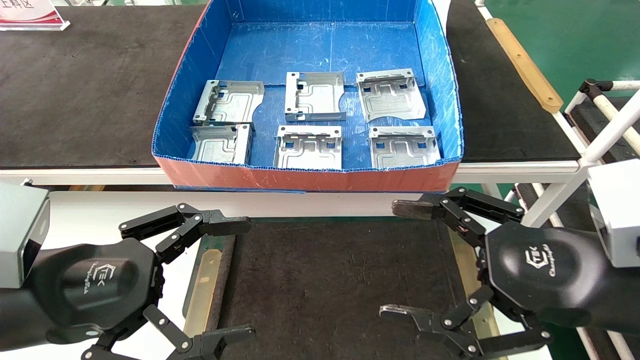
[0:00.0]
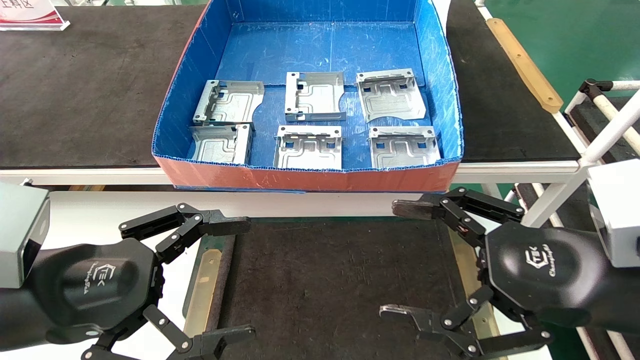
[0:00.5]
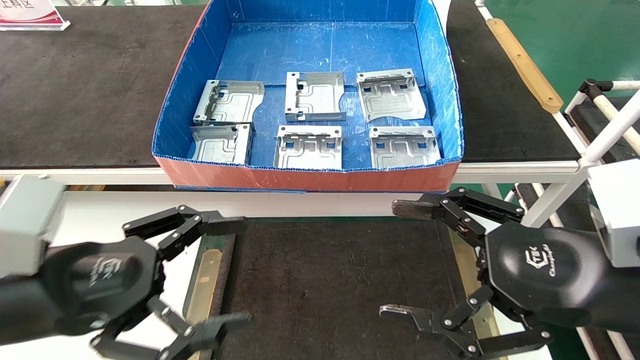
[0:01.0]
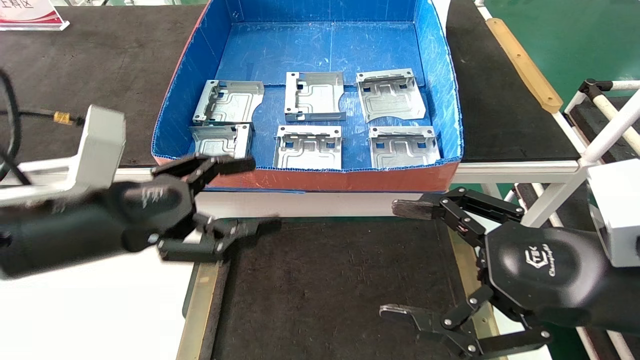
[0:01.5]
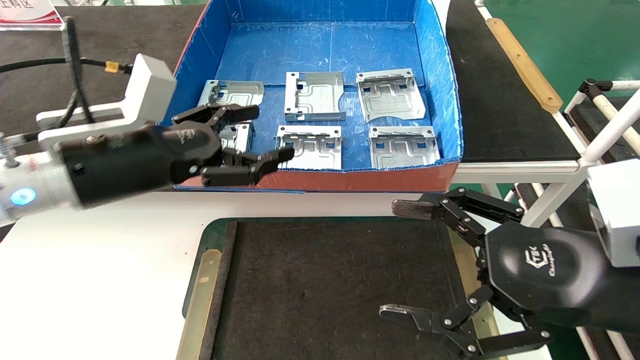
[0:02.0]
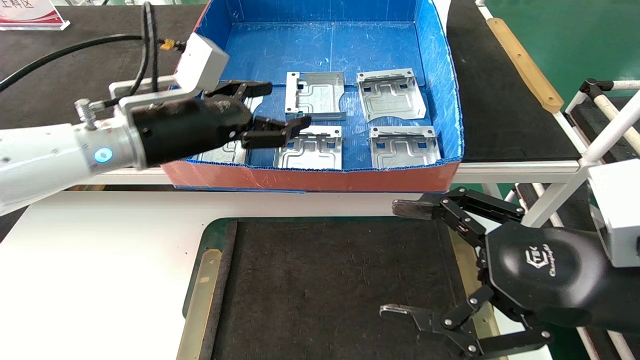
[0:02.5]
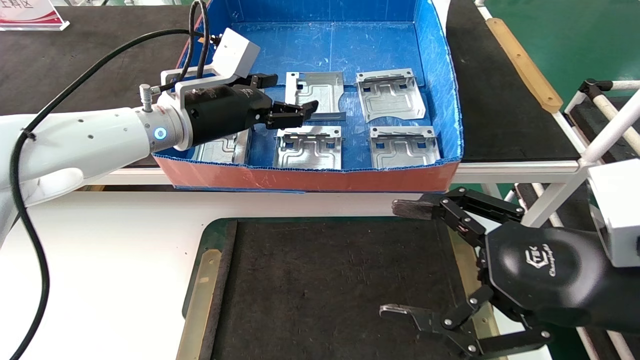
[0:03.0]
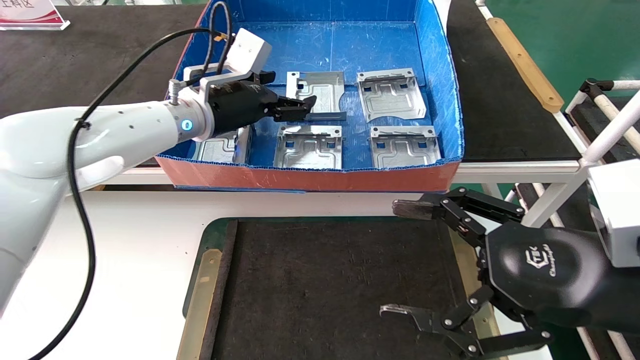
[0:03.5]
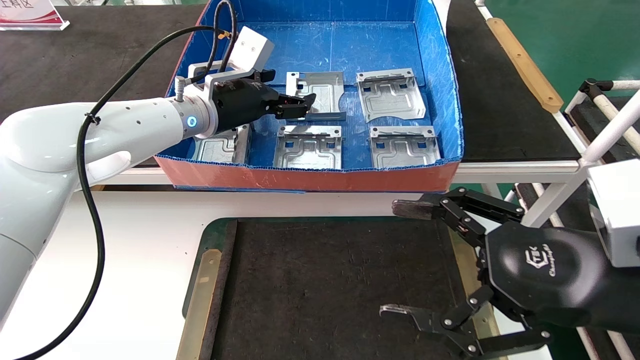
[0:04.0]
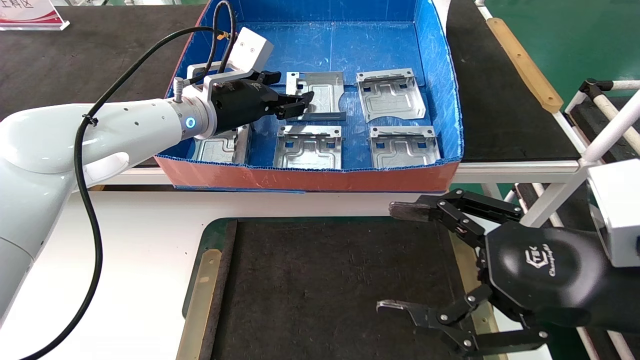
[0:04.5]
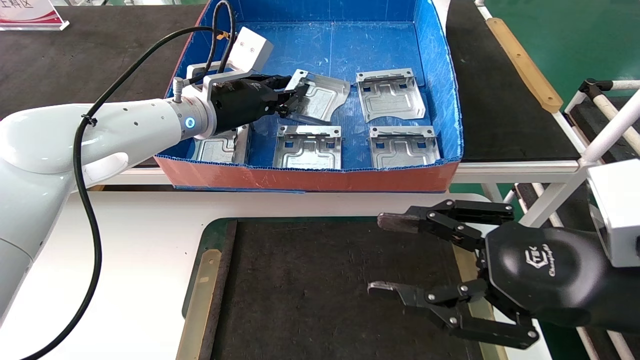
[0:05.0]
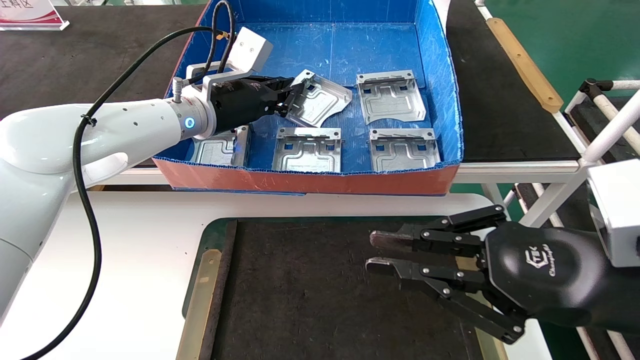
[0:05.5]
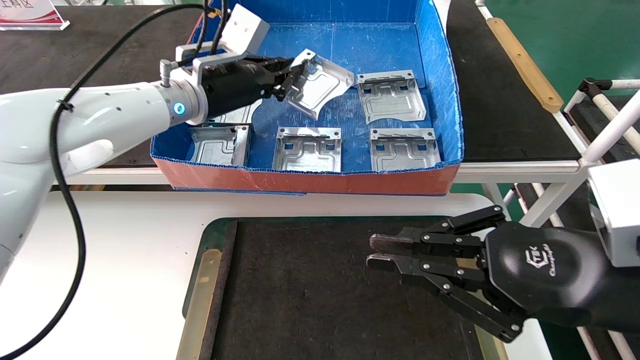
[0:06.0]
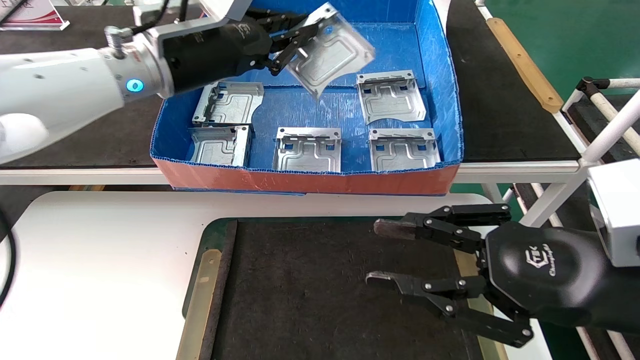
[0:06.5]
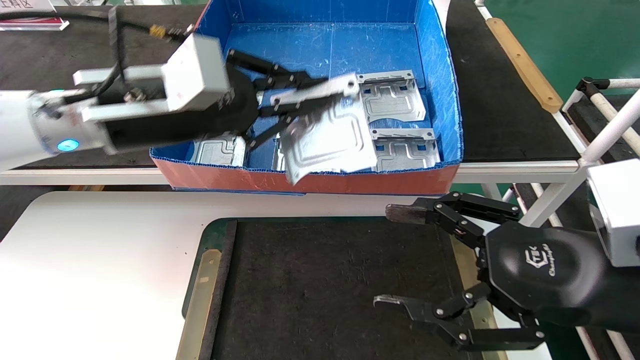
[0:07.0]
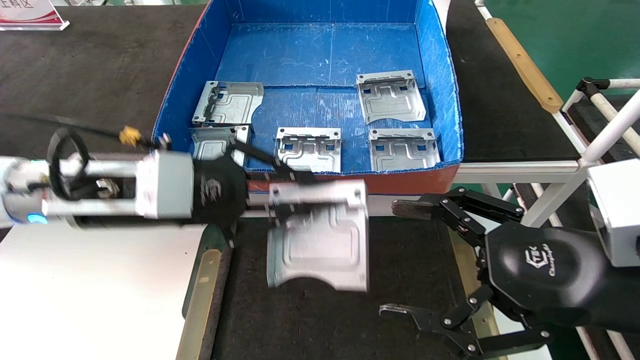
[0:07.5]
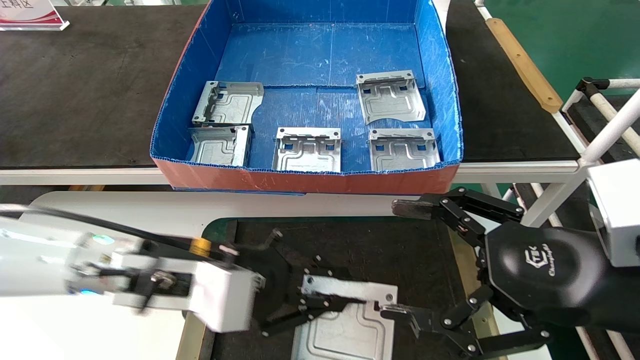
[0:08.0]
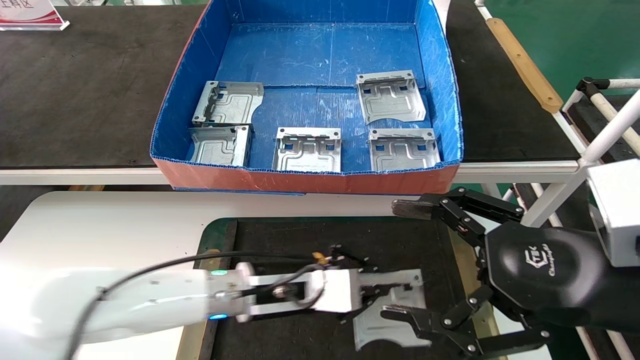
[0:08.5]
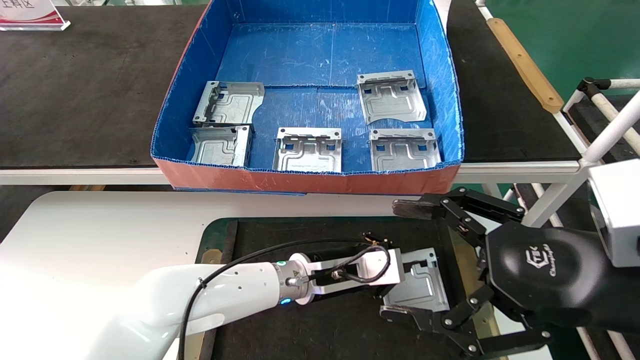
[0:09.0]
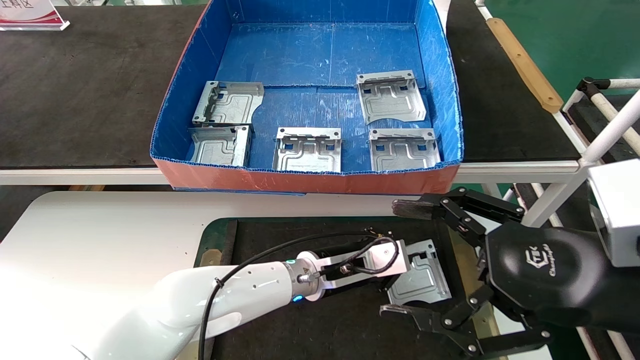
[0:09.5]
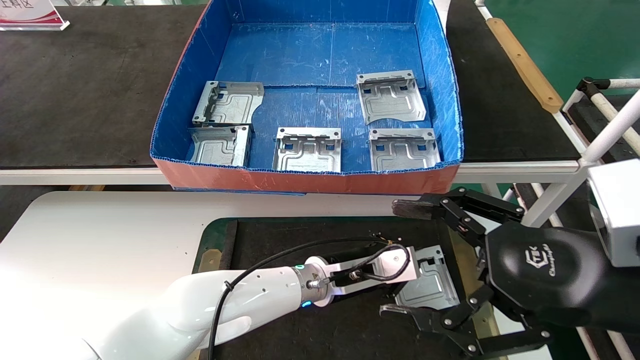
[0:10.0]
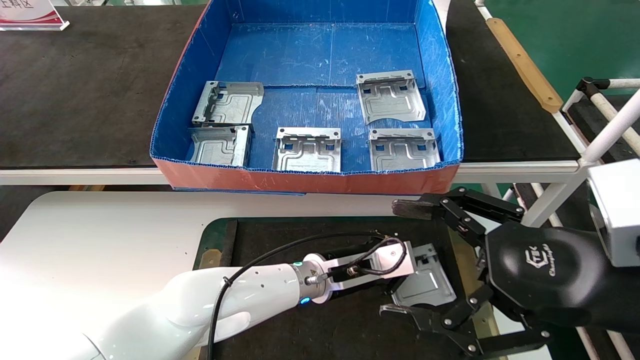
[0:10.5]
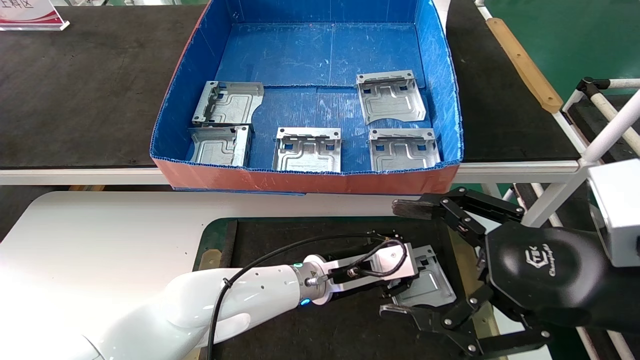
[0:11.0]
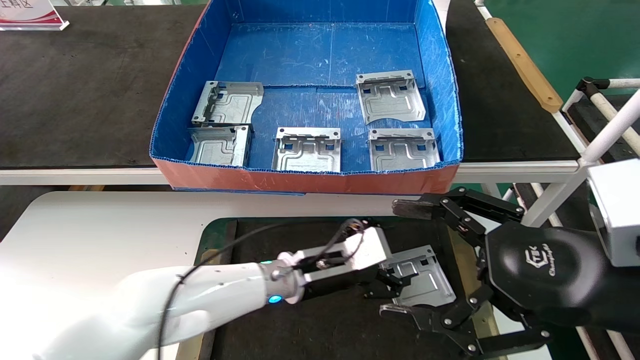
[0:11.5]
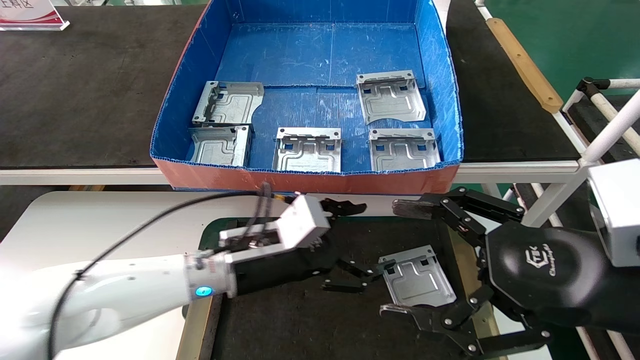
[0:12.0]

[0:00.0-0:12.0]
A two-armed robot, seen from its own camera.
Task of the whole recording: take the accessories out of the box and place them on the table.
Step, 0:01.0 to 0:05.0: Pick up the hard drive bracket from the feeding area.
Step, 0:05.5 to 0:10.5: Place the hard drive bracket into the box.
0:00.0 to 0:02.0: The left gripper heads forward and upward, covering roughly 15 cm.
0:02.0 to 0:04.0: The left gripper goes roughly 15 cm forward and to the right.
0:04.0 to 0:06.0: The left gripper closes up. The right gripper closes its fingers.
0:06.0 to 0:08.0: The left gripper heads downward and backward, covering roughly 20 cm. The right gripper opens its fingers.
0:08.0 to 0:10.0: The left gripper travels to the right, forward and downward by about 25 cm.
0:10.0 to 0:12.0: The left gripper heads to the left, upward and backward, covering roughly 15 cm, and opens.
